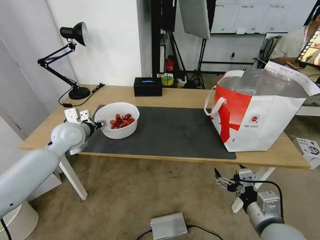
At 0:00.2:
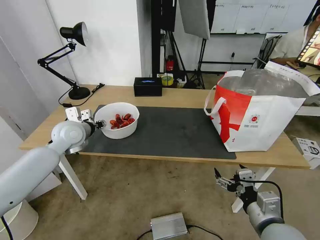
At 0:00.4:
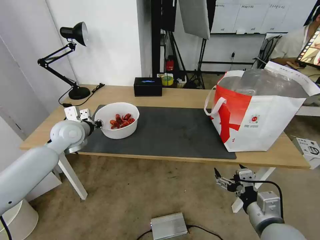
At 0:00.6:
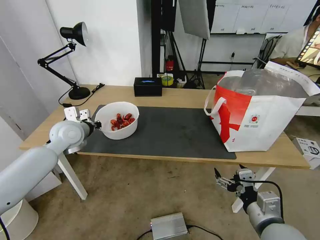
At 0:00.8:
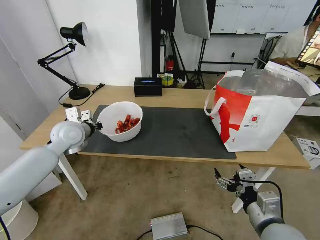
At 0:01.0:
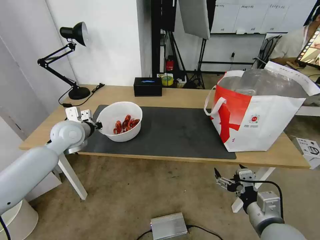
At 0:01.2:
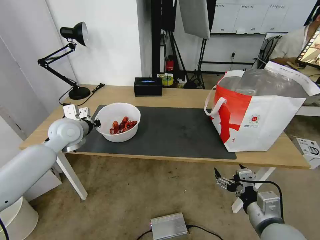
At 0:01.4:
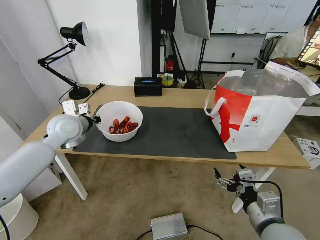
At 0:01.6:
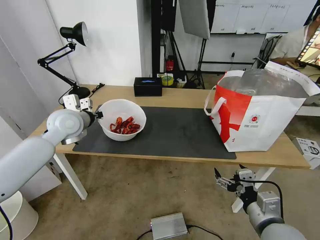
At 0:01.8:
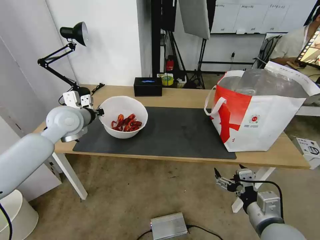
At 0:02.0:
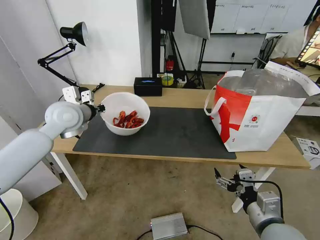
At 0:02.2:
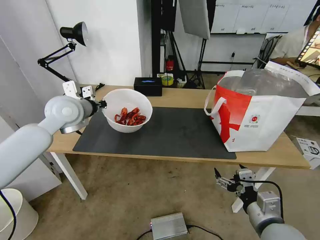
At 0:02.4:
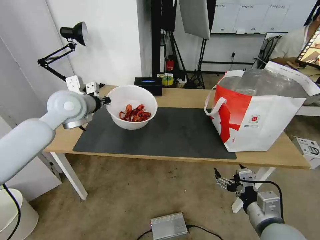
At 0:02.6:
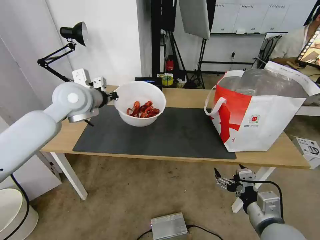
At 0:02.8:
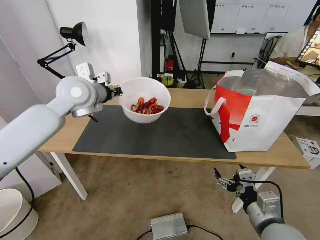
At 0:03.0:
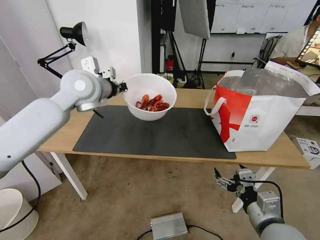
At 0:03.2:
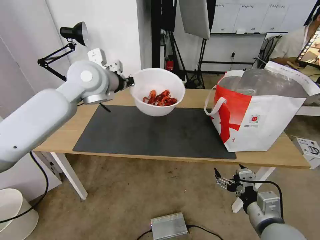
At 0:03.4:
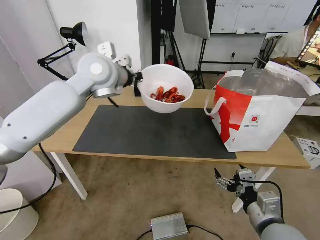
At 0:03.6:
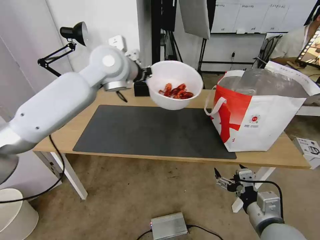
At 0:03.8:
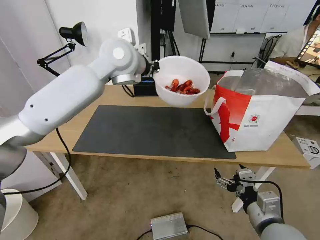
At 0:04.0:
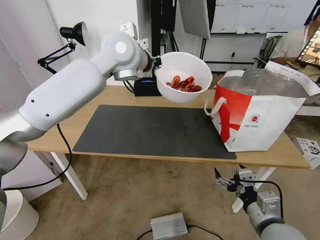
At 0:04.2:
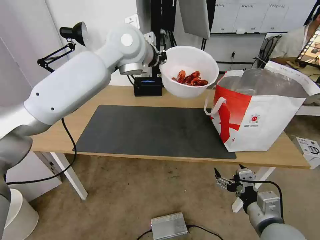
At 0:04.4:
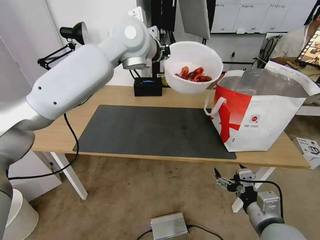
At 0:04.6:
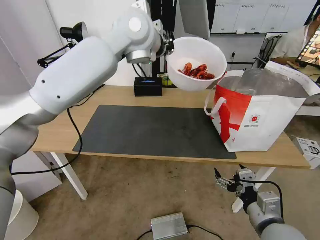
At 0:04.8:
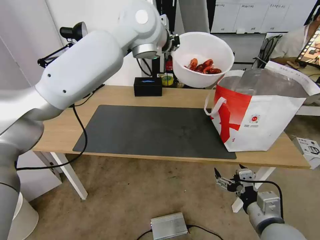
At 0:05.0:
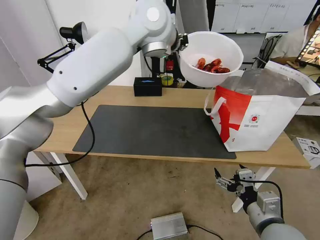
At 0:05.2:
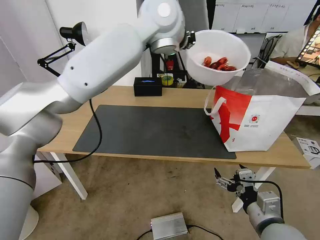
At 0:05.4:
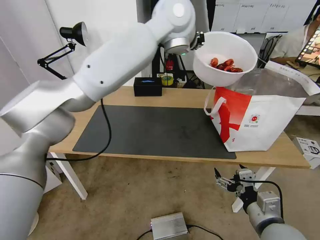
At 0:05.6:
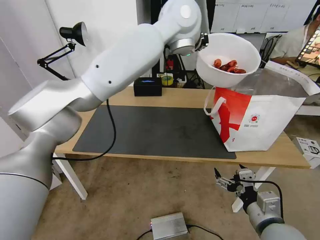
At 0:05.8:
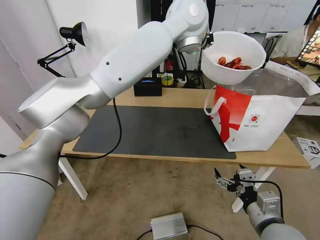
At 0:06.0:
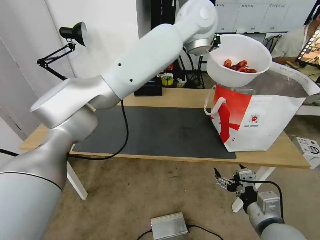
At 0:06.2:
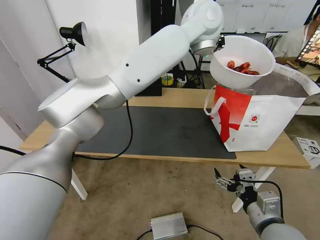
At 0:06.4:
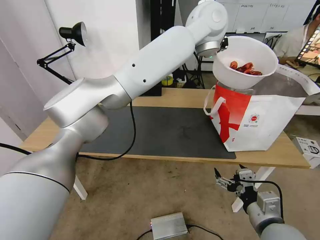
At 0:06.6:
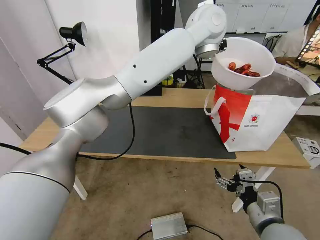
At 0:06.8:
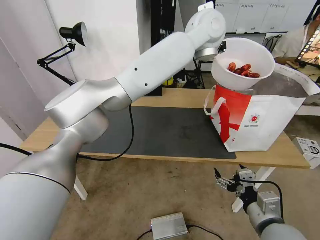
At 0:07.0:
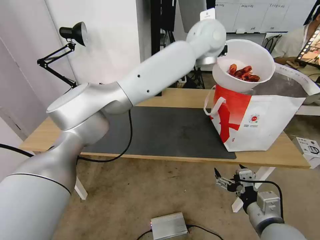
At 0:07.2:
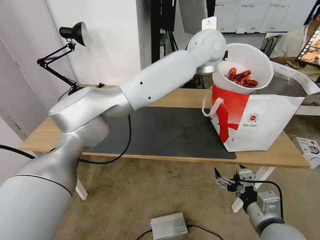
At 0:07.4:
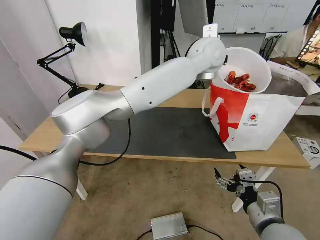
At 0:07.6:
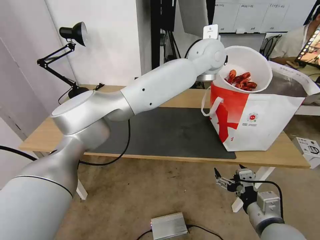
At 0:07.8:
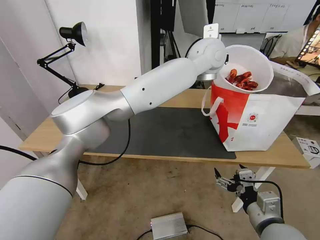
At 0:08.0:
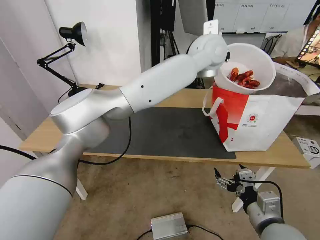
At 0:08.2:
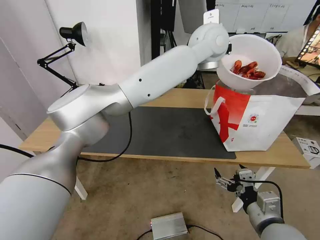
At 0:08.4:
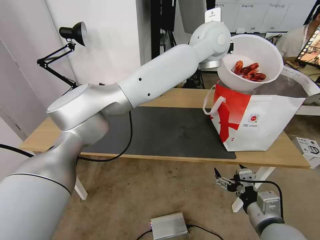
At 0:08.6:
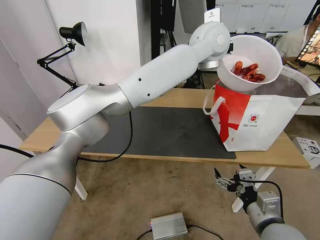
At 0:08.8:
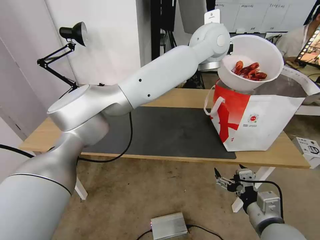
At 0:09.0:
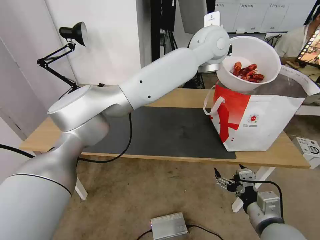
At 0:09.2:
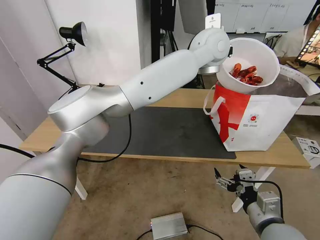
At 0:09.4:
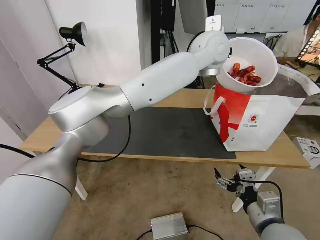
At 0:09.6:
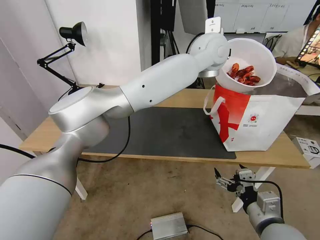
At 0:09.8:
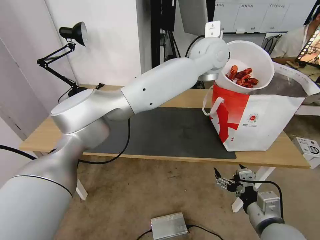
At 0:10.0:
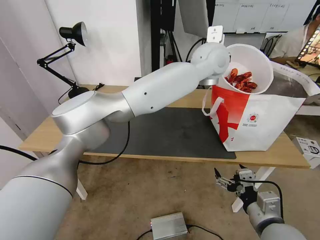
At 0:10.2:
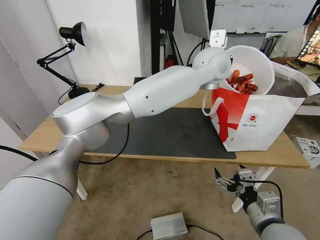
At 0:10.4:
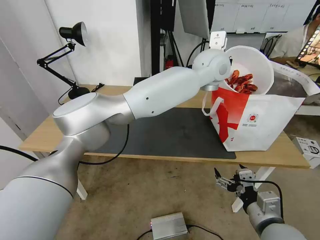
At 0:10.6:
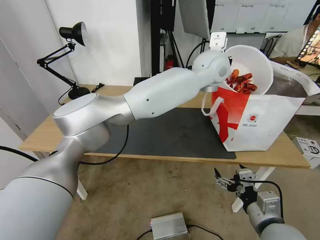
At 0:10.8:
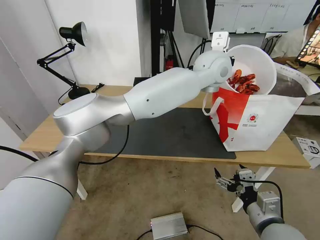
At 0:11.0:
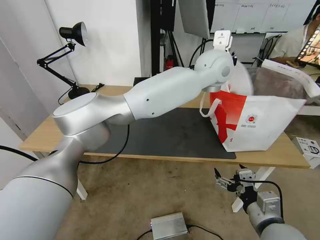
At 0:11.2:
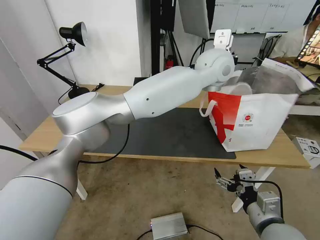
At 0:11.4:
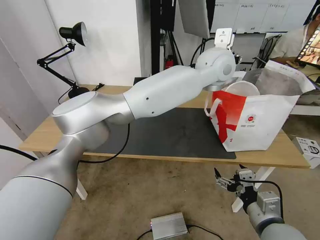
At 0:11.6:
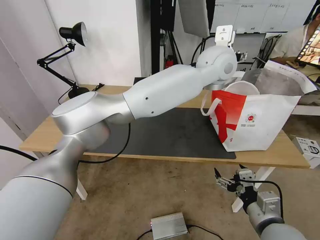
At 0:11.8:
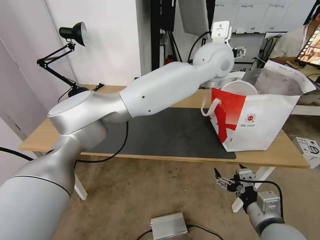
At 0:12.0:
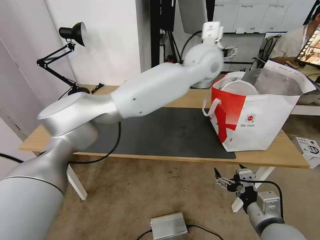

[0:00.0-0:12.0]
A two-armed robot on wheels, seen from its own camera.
Task of the whole recording: Pick up the trash from the table and place it into the takeout bag.
0:00.0 to 0:01.6: The left gripper moves upward, approximately 5 cm, and closes.
0:01.6 to 0:03.0: The left gripper goes approximately 15 cm upward and to the right.
0:03.0 to 0:04.4: The left gripper heads to the right and upward, covering some 15 cm.
0:04.4 to 0:06.0: The left gripper heads to the right, covering about 15 cm.
0:06.0 to 0:07.6: The left gripper is displaced downward by roughly 10 cm.
0:07.6 to 0:09.0: The grippers move only a little.
0:09.0 to 0:10.4: The left gripper shifts by approximately 5 cm.
0:10.4 to 0:12.0: The left gripper opens its fingers.

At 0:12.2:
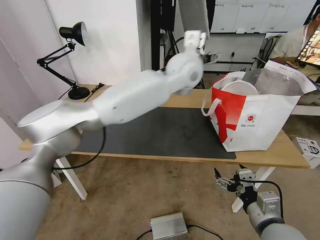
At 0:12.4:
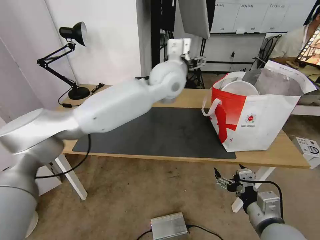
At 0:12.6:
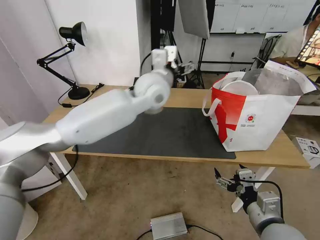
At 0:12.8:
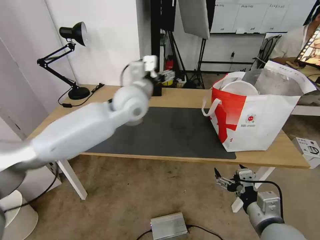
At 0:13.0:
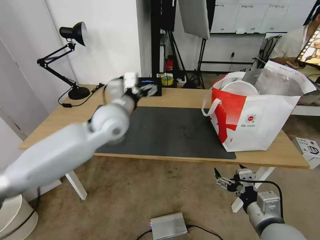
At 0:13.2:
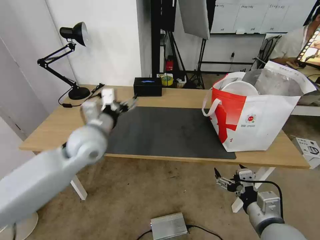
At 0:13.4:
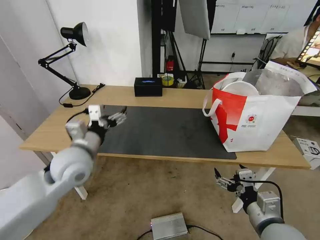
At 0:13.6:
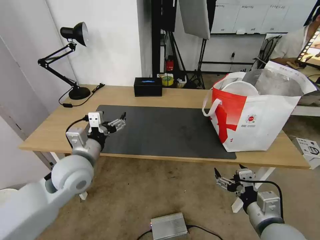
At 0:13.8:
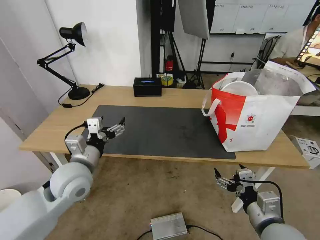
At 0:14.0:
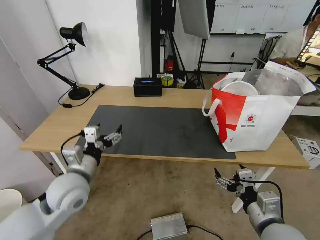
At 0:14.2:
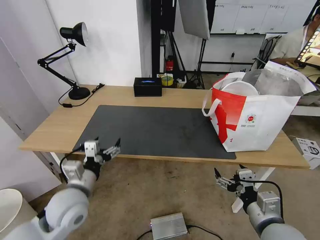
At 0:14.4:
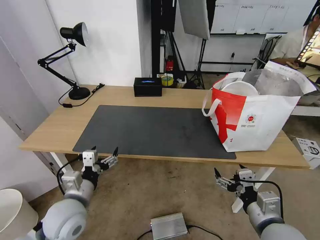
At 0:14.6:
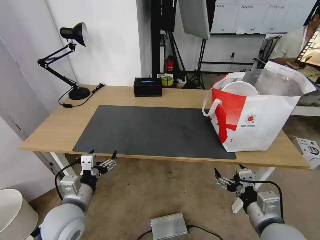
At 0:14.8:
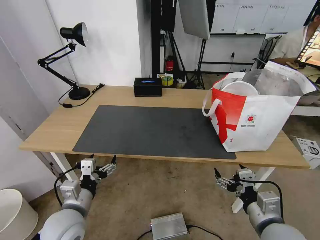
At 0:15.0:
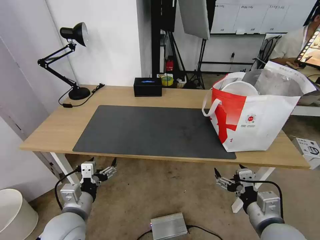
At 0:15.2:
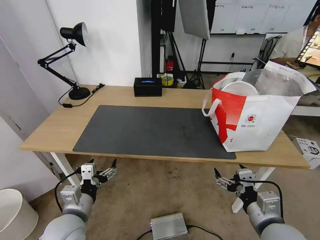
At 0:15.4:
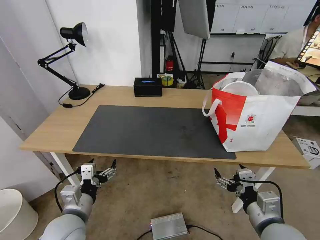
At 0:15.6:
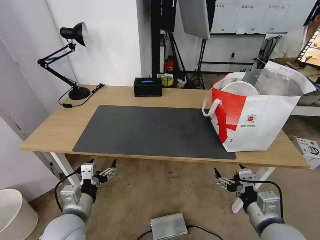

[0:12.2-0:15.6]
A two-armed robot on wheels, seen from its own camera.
Task of the whole recording: Pick up the trash from the table and place it into the takeout bag.
0:12.2 to 0:13.8: The left gripper heads to the left, backward and downward, covering approximately 40 cm.
0:13.8 to 0:15.6: The left gripper is displaced backward and downward by approximately 15 cm.
